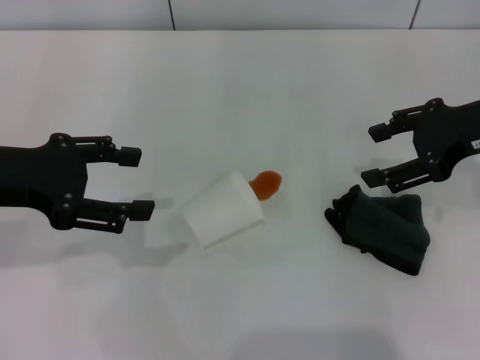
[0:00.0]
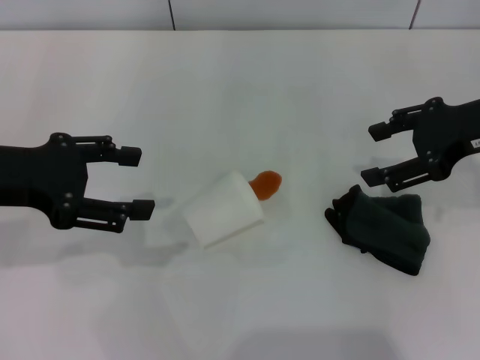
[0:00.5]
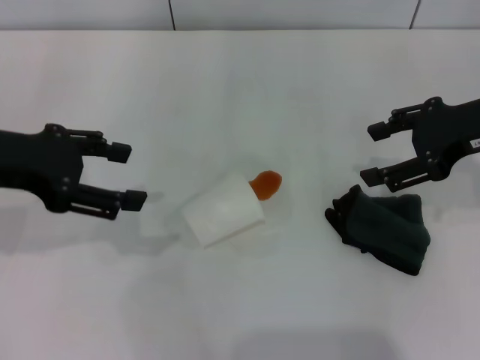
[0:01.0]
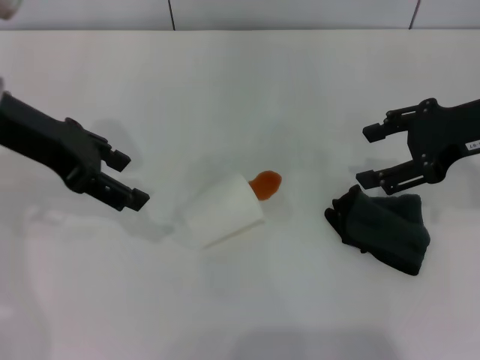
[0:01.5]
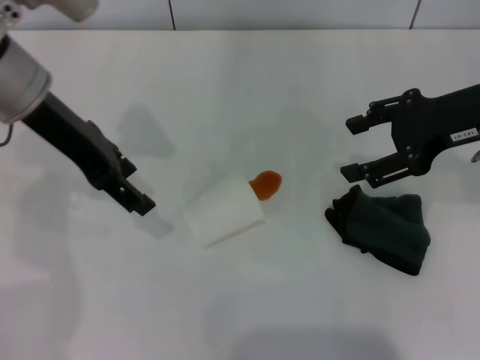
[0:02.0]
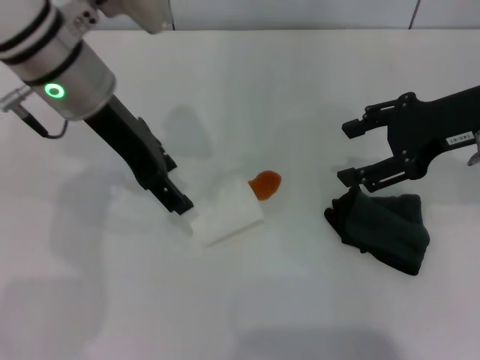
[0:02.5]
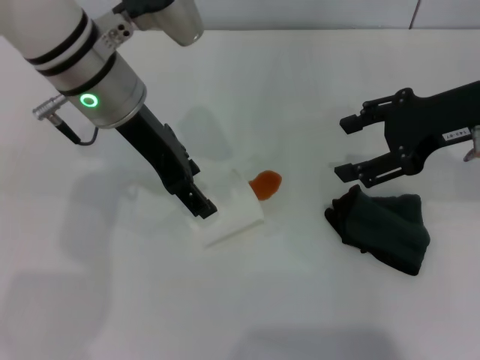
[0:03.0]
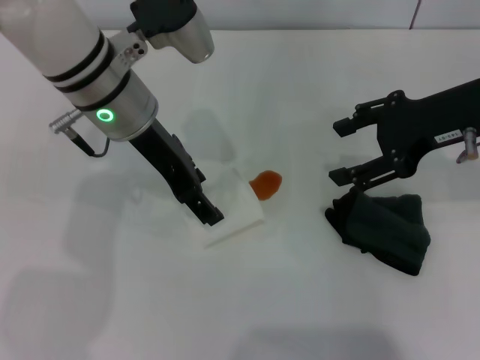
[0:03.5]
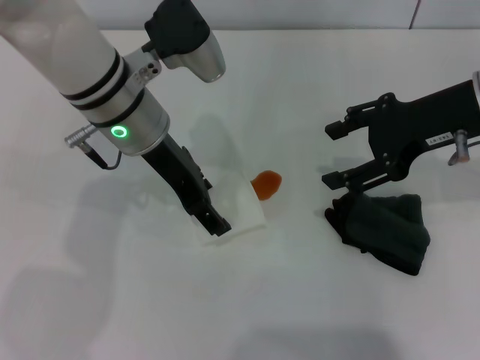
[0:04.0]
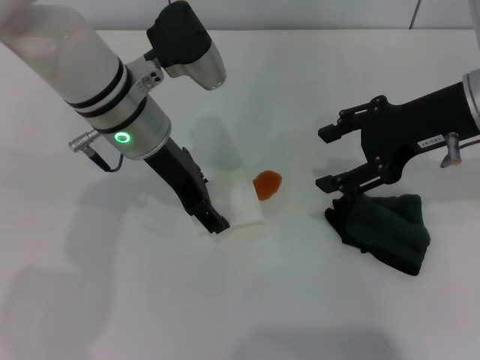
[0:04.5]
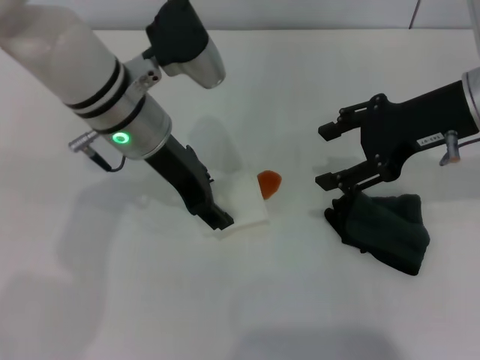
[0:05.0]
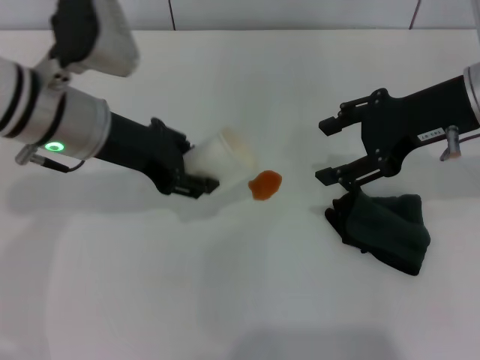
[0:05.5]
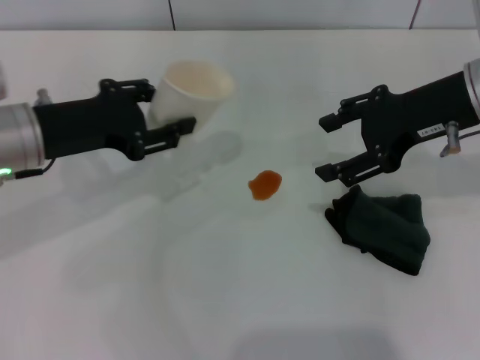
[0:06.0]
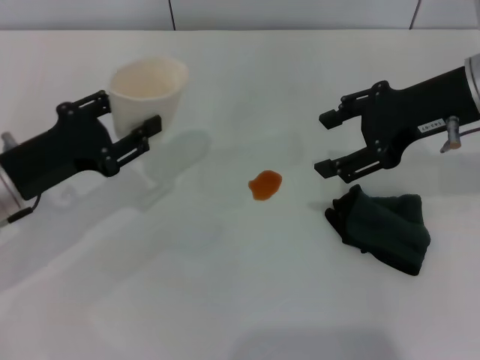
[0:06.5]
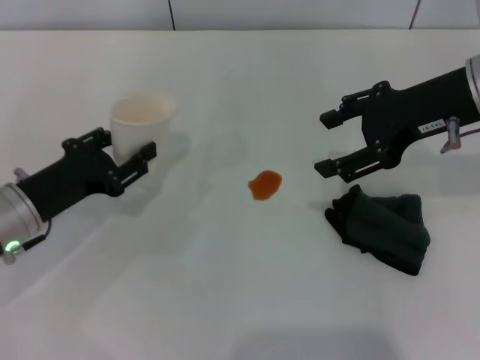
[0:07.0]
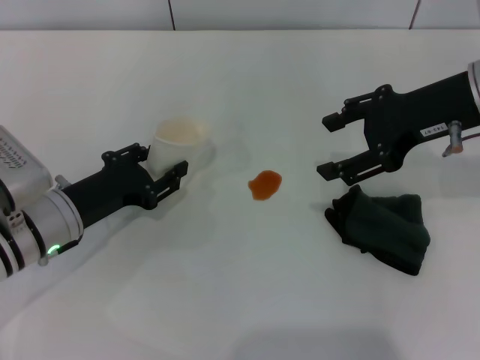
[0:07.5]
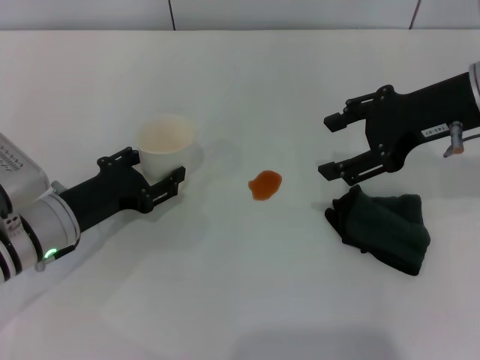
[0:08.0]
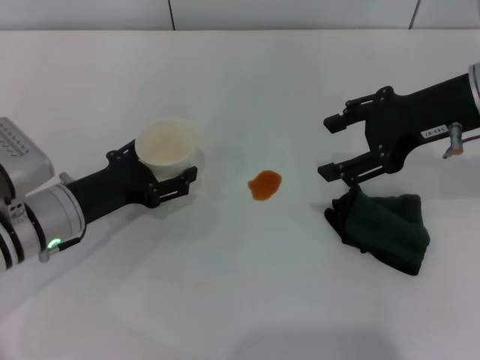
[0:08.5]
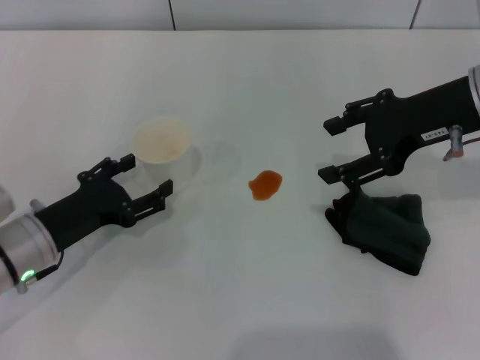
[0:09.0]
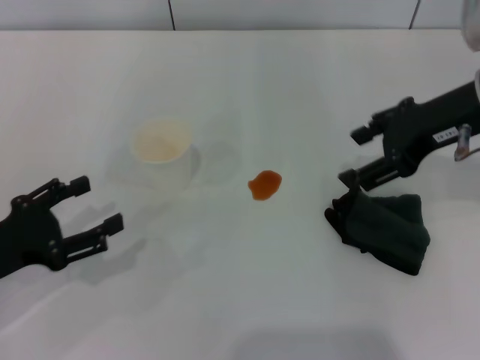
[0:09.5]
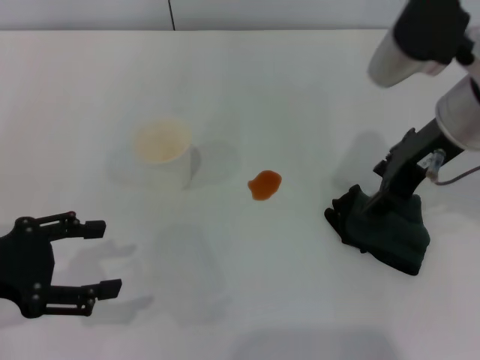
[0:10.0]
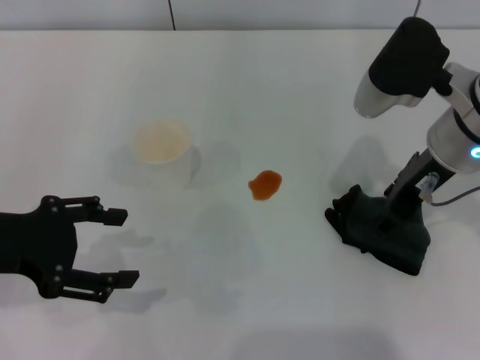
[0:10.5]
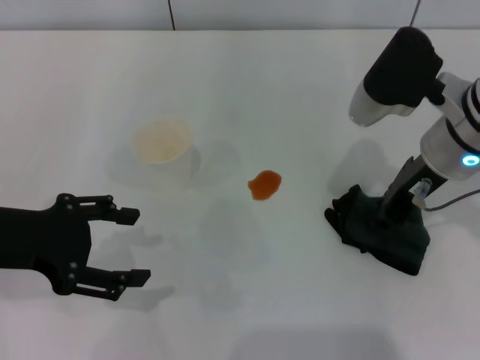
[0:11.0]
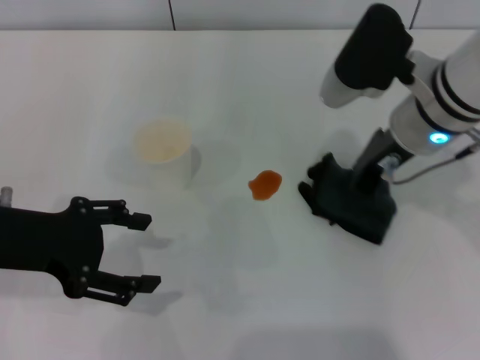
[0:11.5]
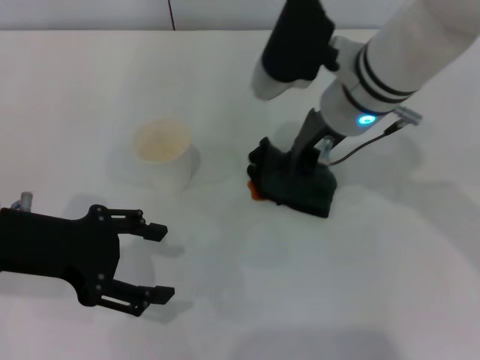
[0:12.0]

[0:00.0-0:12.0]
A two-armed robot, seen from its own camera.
Step, 0:00.0 to 0:04.5: Grasp the paper cup with the left gripper.
Step, 0:05.0 to 0:09.0: Stand the paper cup upright with the left gripper.
Step, 0:09.5 to 0:11.0: Grasp the rag with the right gripper.
0:00.0 to 0:02.0: The left gripper moves forward and to the right, roughly 10 cm.
0:02.0 to 0:04.0: The left gripper travels to the right and downward by roughly 10 cm.
0:04.0 to 0:06.0: The left gripper goes approximately 15 cm to the left and backward, and closes.
0:06.0 to 0:08.0: The left gripper heads downward, covering about 10 cm.
0:08.0 to 0:10.0: The left gripper is displaced upward, to the left and backward by approximately 15 cm, and opens.
0:10.0 to 0:12.0: The left gripper travels to the right by about 5 cm. Meanwhile the right gripper moves to the left, some 10 cm, and closes.

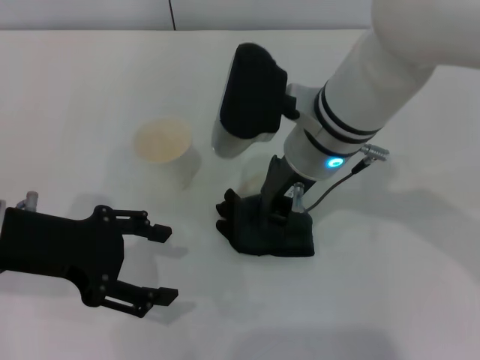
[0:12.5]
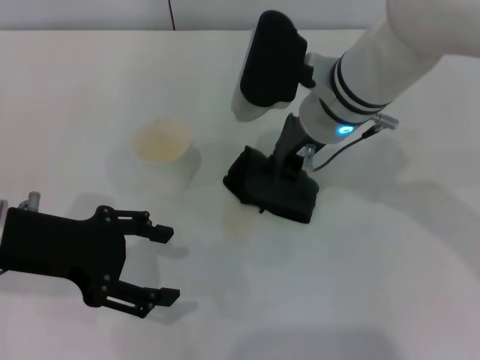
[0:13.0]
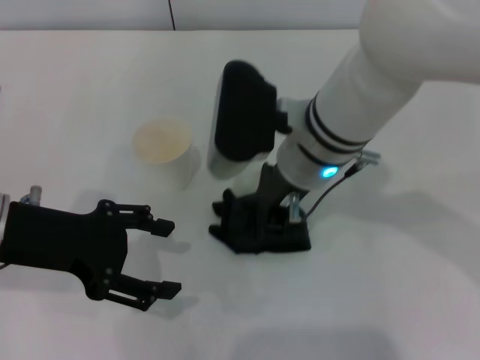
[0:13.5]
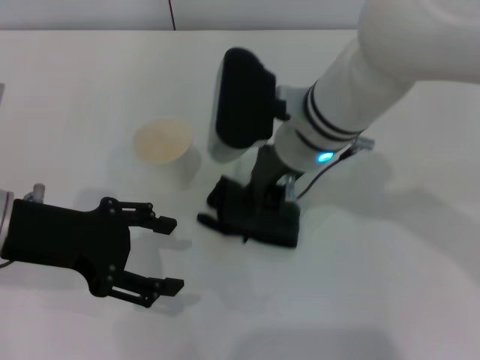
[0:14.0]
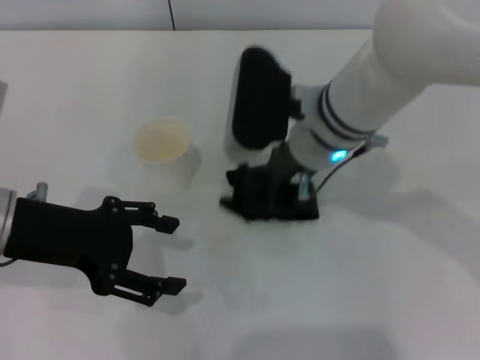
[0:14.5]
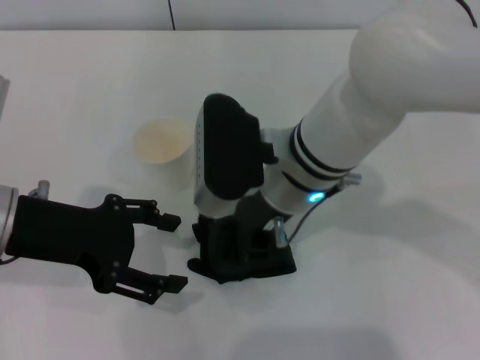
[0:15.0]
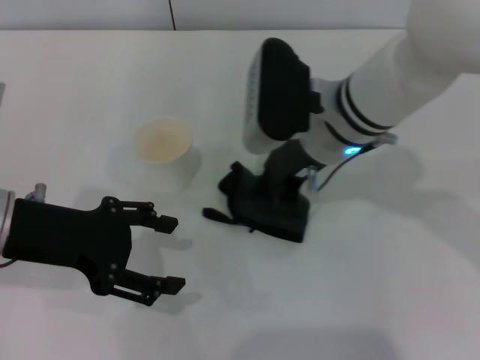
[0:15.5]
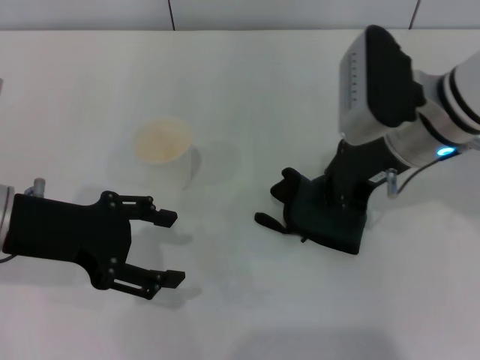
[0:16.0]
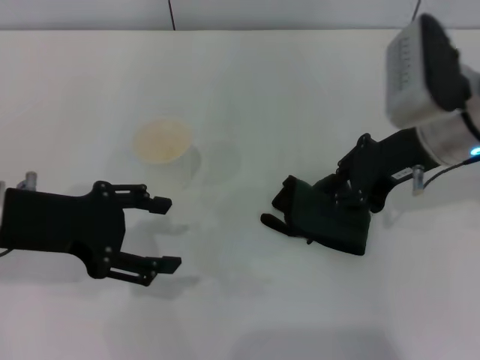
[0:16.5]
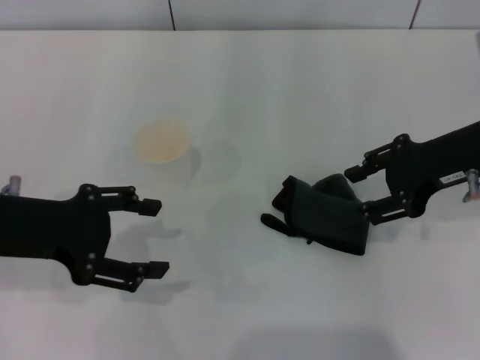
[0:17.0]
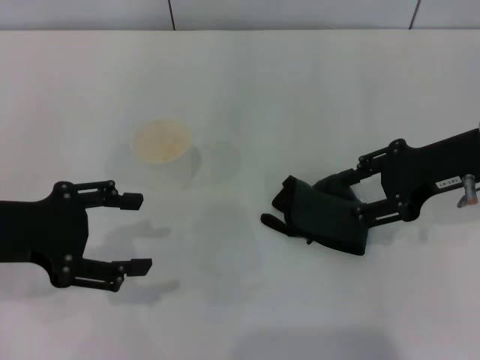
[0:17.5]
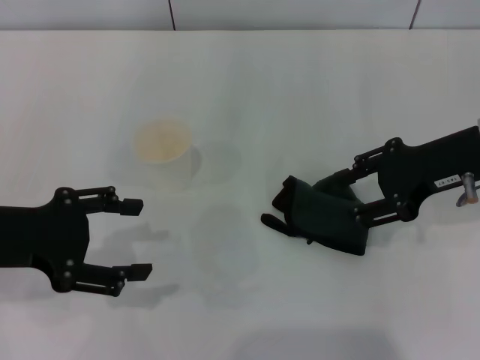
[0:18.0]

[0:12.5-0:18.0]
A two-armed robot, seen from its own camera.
Step, 0:12.5 to 0:15.0: Wipe the stains off the table with the right gripper.
Step, 0:15.5 to 0:17.0: Place the rag on the table with the right gripper.
0:12.5 to 0:14.5: The grippers stay close to where they were, moving slightly.
0:14.5 to 0:16.0: The right gripper travels to the right by about 10 cm.
0:16.0 to 0:18.0: The right gripper is displaced to the right by about 10 cm, and opens.
